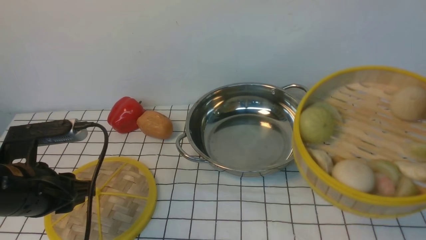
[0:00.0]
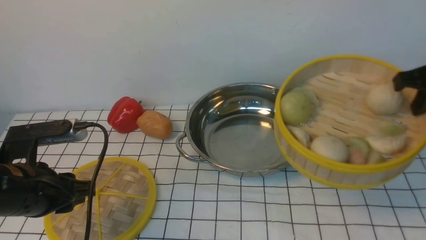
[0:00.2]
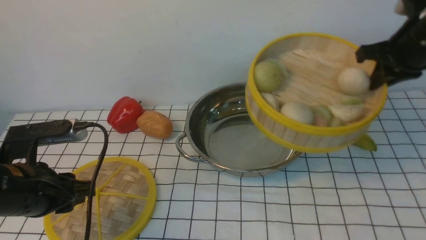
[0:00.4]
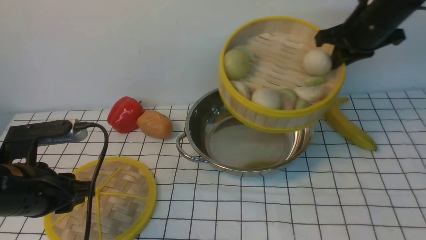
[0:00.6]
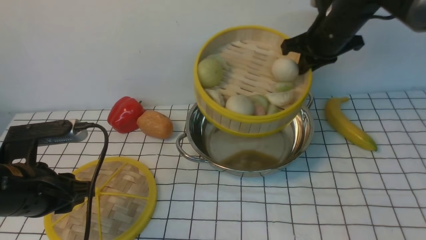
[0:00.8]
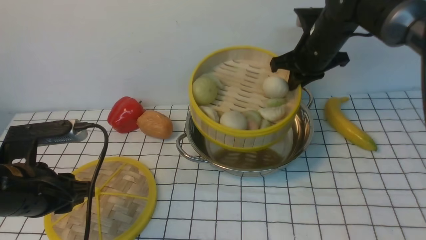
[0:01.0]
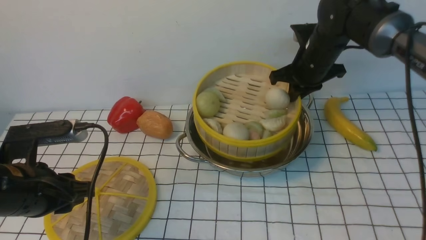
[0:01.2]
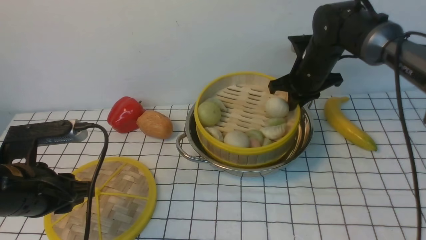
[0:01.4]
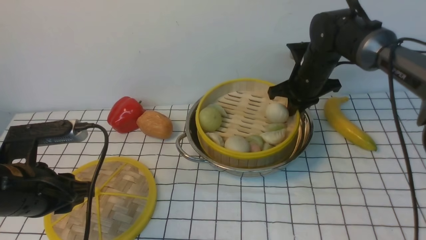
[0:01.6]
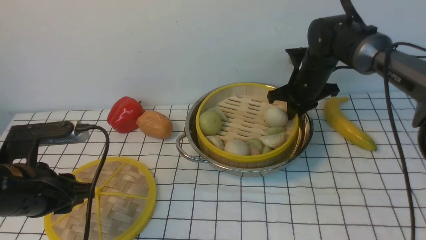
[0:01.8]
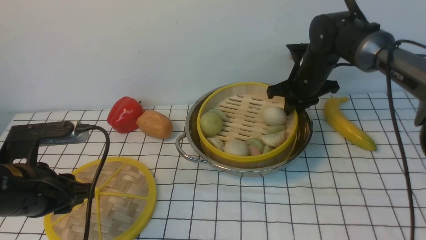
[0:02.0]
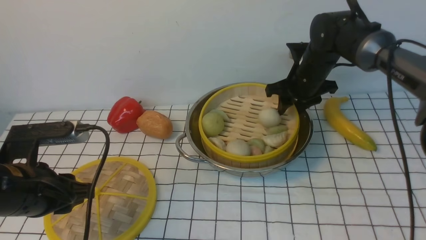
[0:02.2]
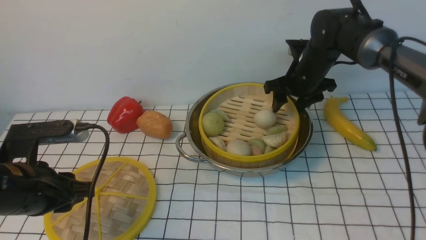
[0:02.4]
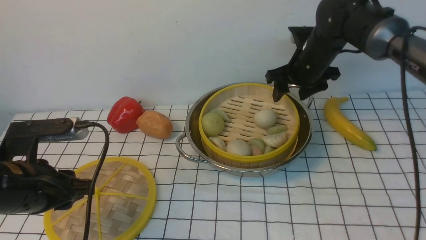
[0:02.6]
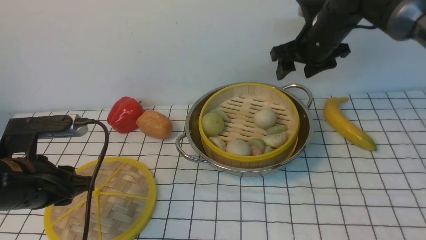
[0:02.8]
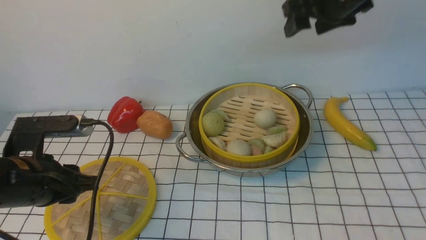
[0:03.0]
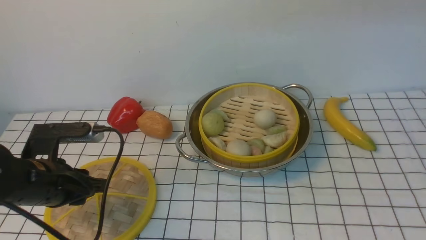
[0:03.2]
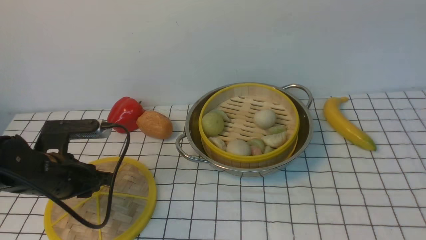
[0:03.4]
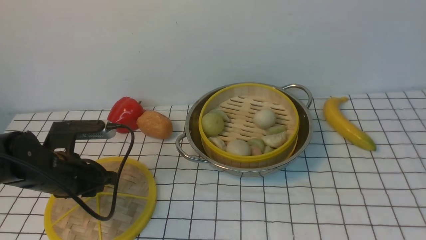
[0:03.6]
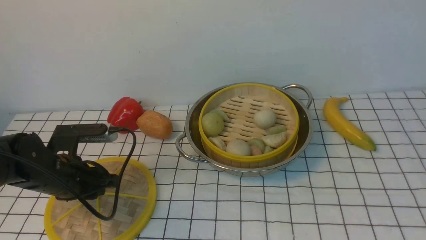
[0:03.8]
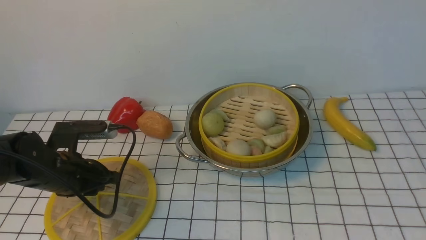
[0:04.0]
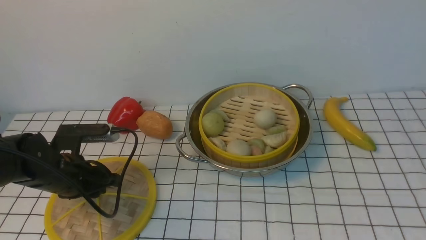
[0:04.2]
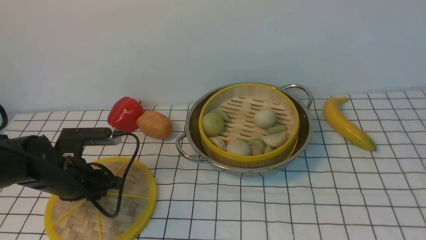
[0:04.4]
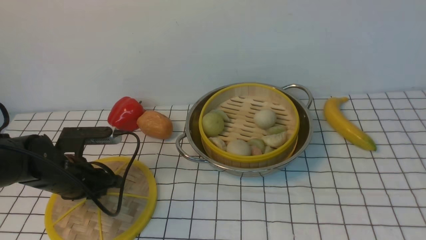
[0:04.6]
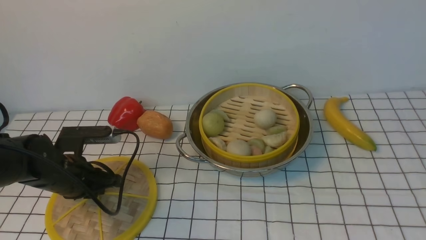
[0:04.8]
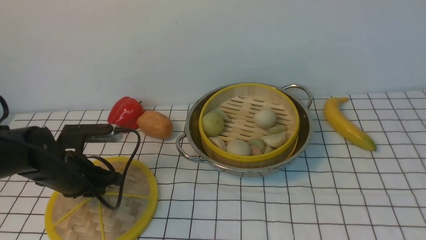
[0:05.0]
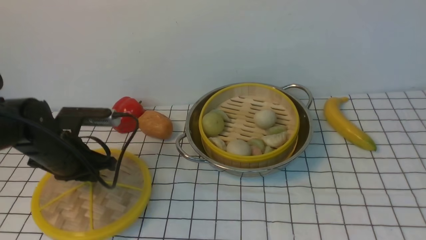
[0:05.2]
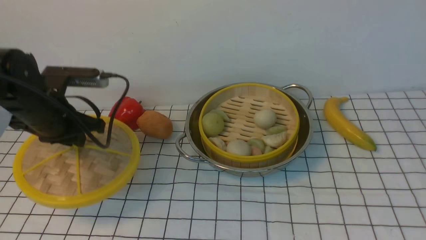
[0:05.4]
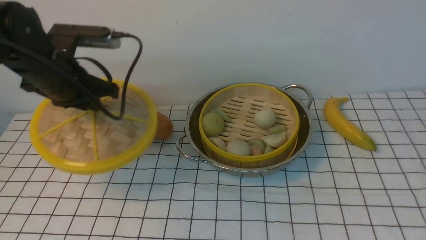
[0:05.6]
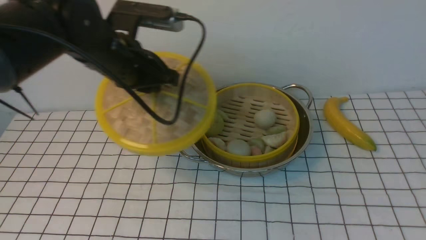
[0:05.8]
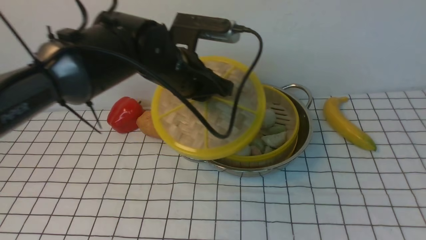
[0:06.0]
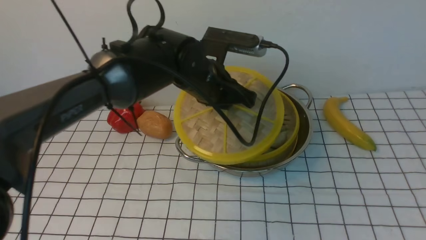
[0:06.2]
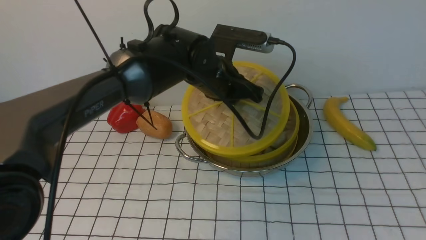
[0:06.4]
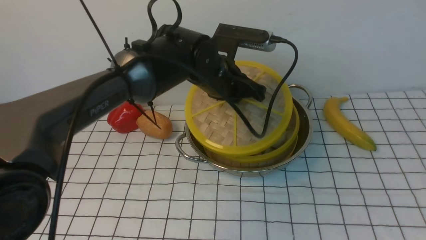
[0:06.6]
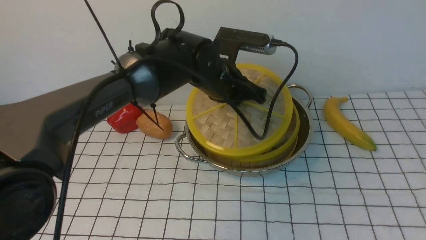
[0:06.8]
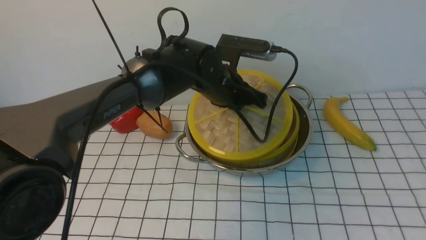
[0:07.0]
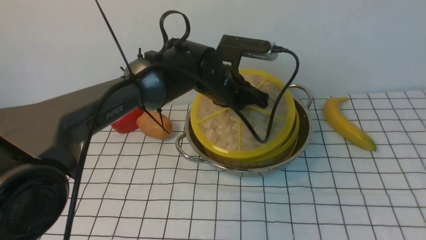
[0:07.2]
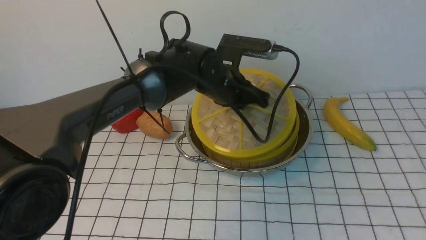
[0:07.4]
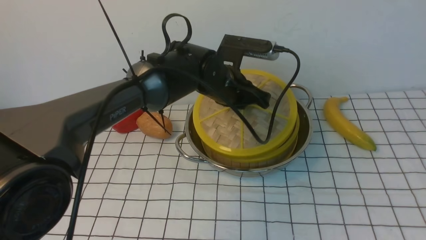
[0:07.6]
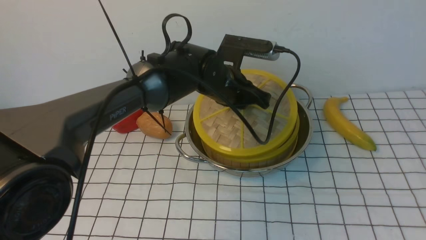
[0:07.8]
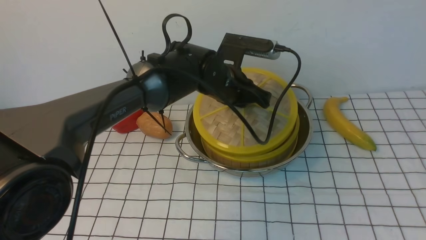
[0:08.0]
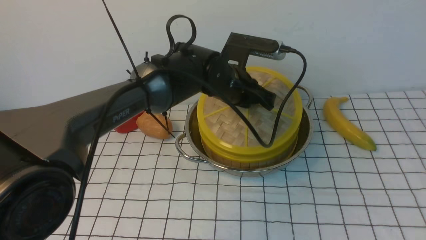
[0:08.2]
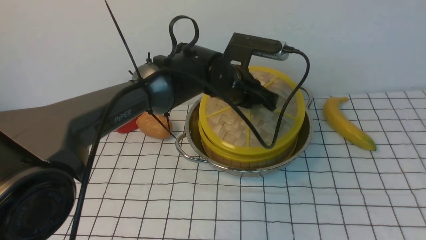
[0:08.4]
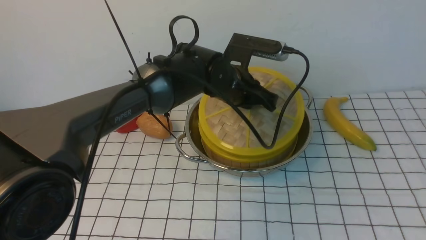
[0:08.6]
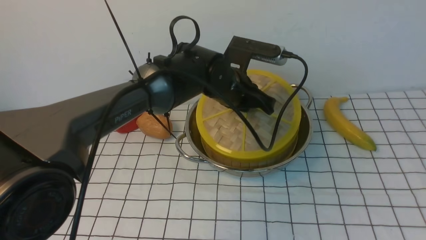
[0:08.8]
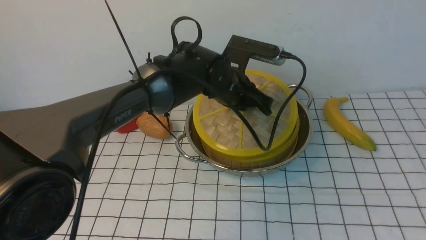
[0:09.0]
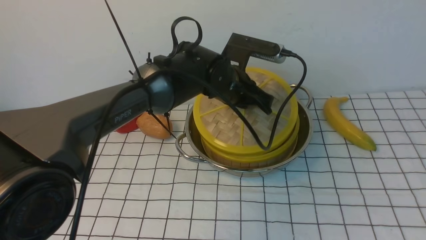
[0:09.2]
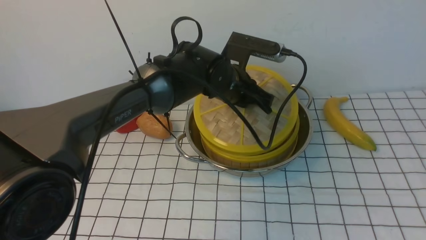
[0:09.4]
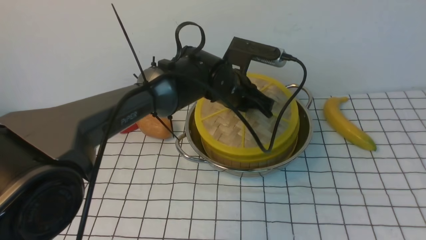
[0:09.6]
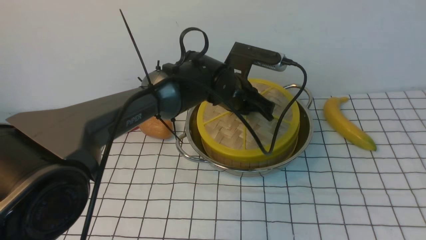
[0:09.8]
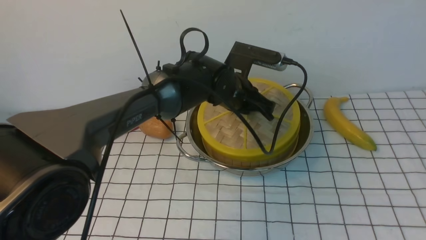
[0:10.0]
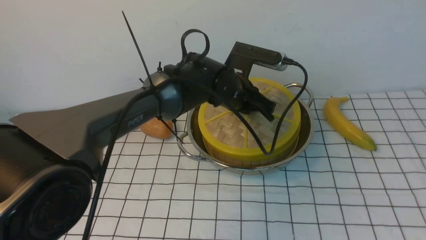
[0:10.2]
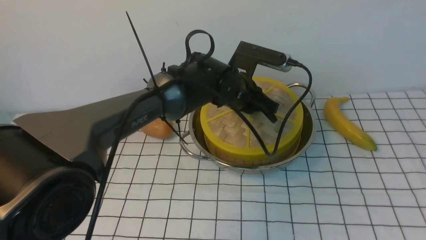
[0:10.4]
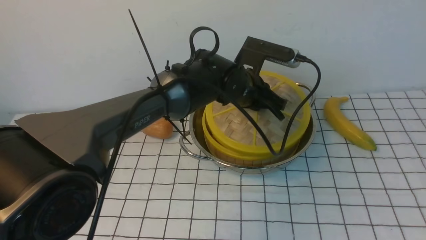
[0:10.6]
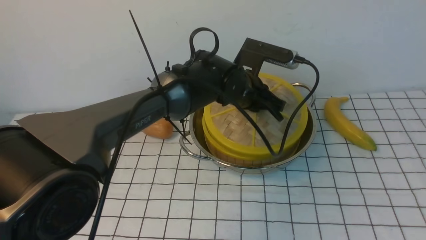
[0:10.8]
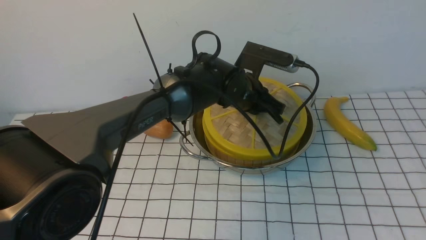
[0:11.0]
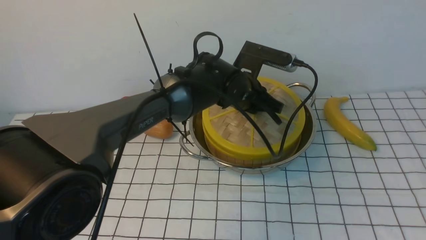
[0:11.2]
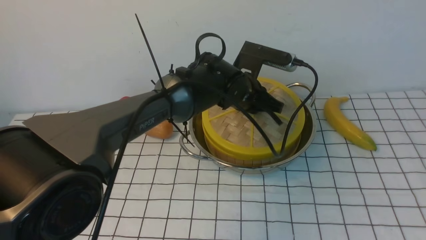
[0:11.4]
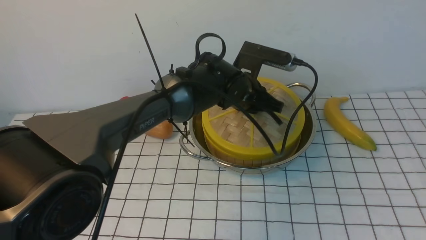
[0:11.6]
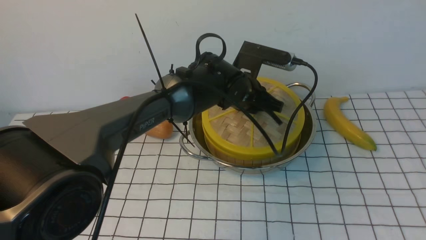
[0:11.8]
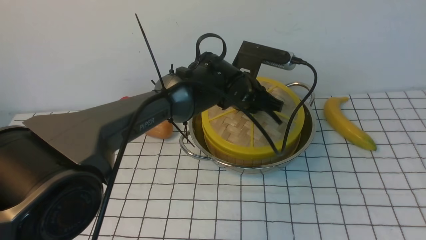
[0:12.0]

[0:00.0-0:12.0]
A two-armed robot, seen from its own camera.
Task of the whole recording: place the steamer in the pot on the white tablecloth, and put the lid on the steamer.
Step, 0:00.0 to 0:02.6: use the right arm to put the steamer into the iron steamer pot in the middle.
Step, 0:02.8 to 0:05.2: use the left arm to lift the lid of the steamer.
0:00.0 to 0:01.6: The right gripper goes some 30 cm forward, to the left and downward.
0:01.6 to 0:03.0: The right gripper moves upward, about 20 cm, and opens up.
0:03.0 to 0:04.4: The right gripper goes about 40 cm backward. The left gripper heads downward and forward, covering some 10 cm.
0:04.4 to 0:06.0: The left gripper shifts some 25 cm to the right, upward and forward, and closes its fingers.
0:06.0 to 0:07.6: The left gripper heads to the right and downward, covering roughly 10 cm.
0:07.6 to 0:09.0: Both grippers stay put.
0:09.0 to 0:10.4: The grippers move only a little.
0:10.4 to 0:12.0: Both grippers stay put.

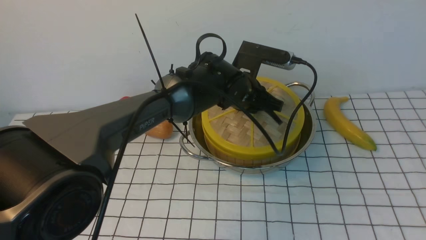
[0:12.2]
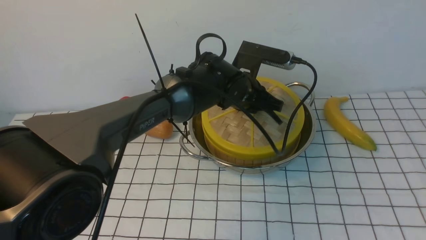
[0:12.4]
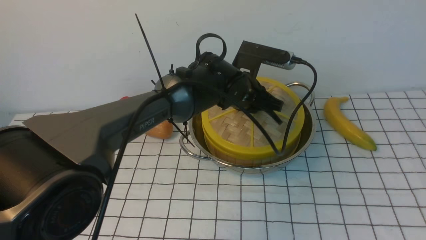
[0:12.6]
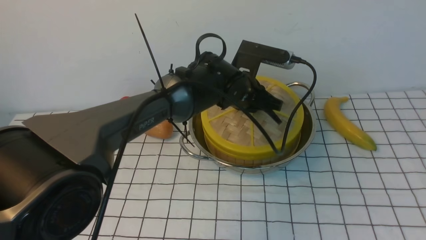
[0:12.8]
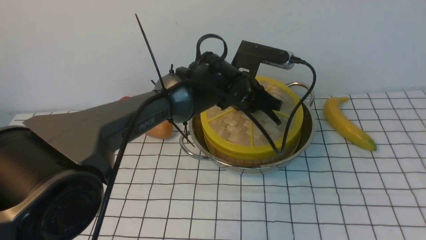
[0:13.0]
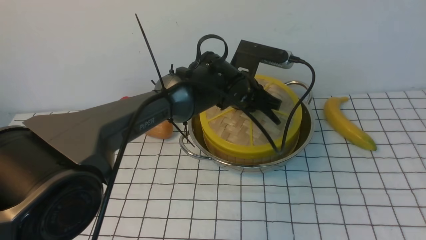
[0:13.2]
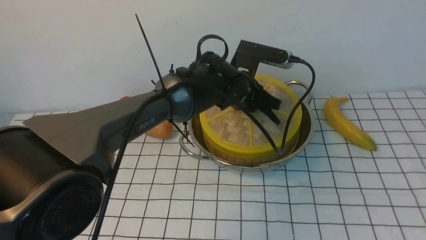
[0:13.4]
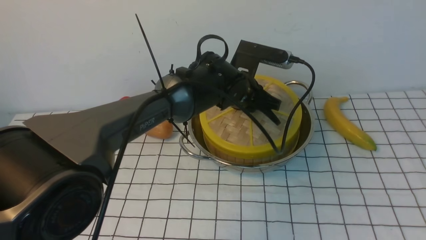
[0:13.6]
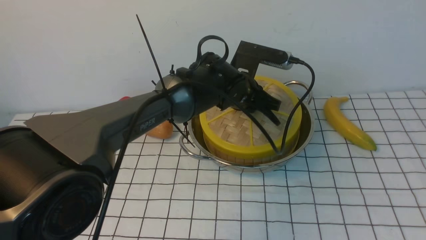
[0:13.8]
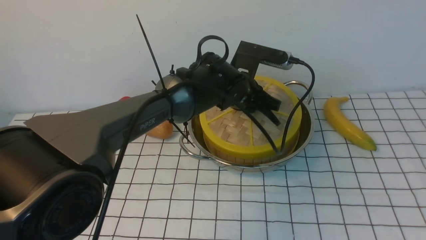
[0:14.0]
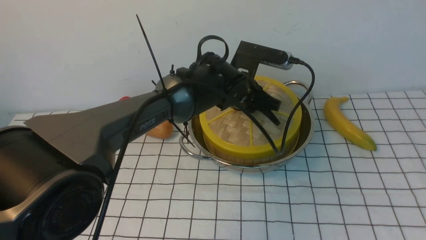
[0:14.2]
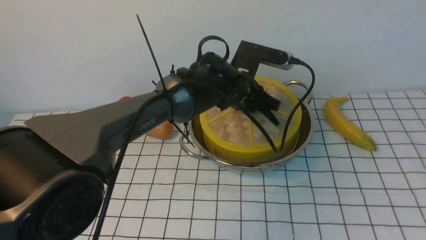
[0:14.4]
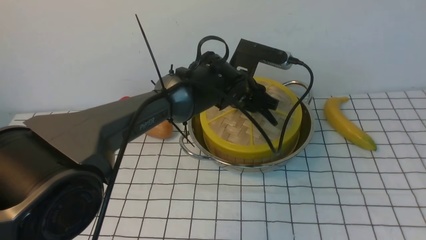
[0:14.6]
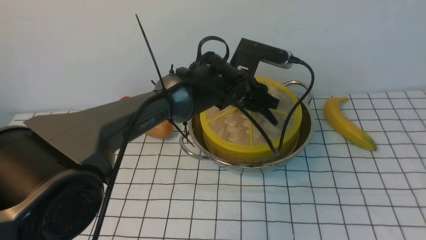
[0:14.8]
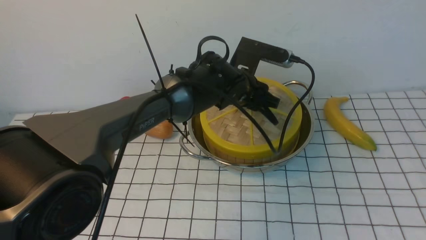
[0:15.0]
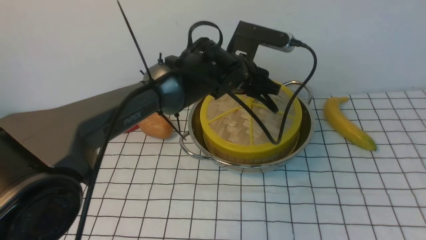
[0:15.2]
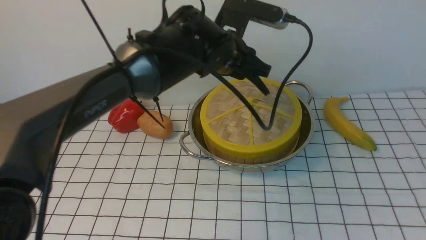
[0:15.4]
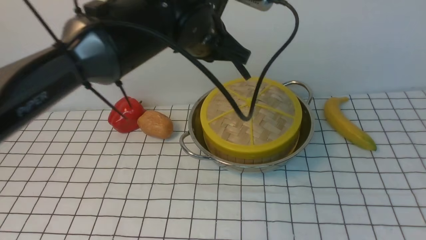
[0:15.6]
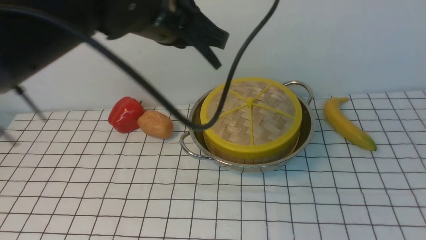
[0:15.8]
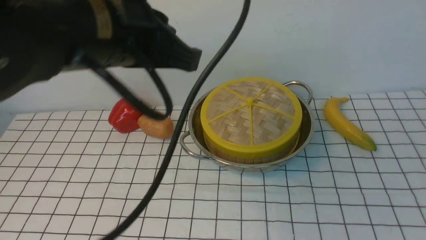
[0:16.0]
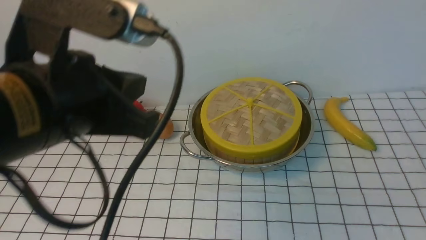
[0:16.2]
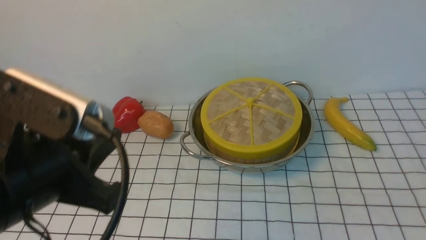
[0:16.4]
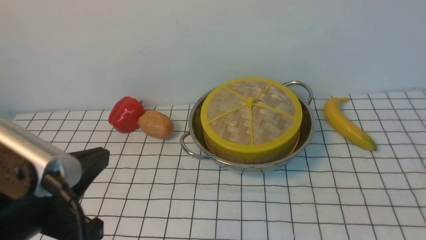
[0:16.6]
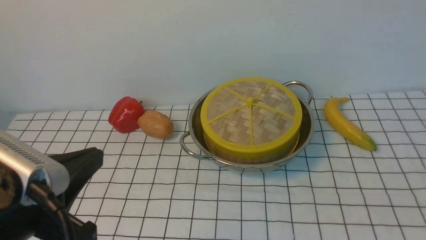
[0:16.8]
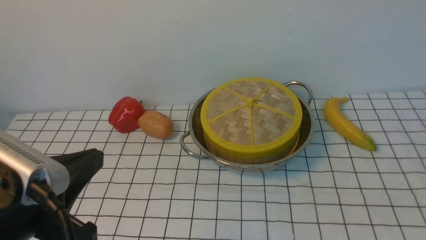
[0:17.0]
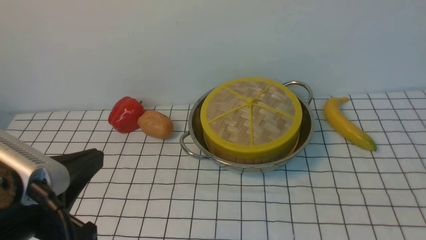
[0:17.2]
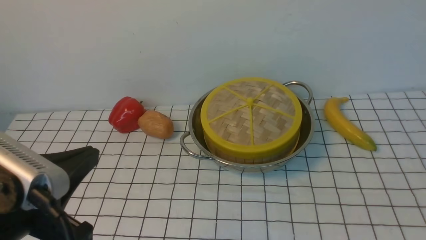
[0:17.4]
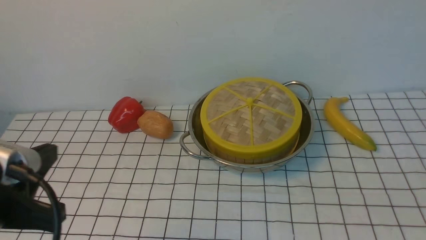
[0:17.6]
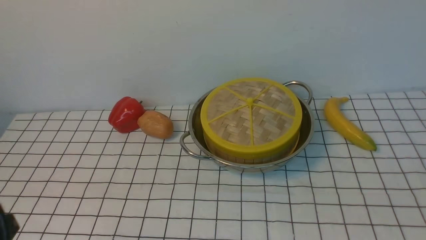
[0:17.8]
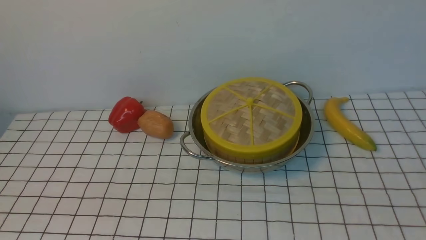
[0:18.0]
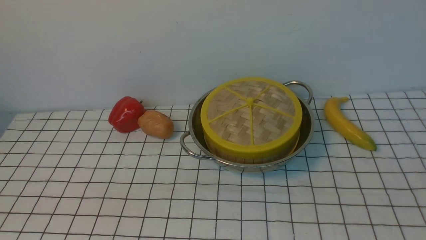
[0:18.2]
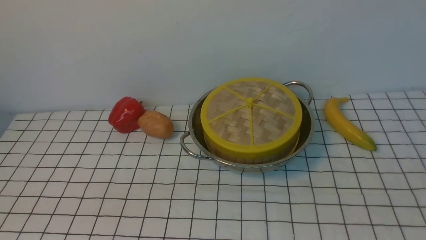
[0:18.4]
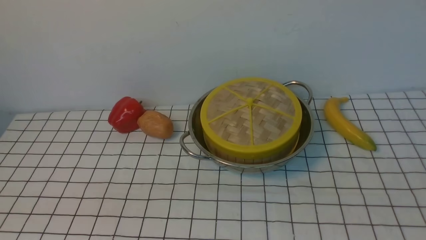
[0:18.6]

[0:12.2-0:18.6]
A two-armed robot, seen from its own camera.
Task of the whole recording: place the steamer in the pot on the white tablecloth, and put the lid on the steamer.
Step, 0:12.2 to 0:15.4: use the left arm to place the steamer lid on the steamer.
0:12.2 to 0:13.8: Both grippers stay put.
0:13.8 to 0:15.4: The left gripper heads upward, covering roughly 10 cm, and opens, then closes once more.
0:15.4 to 0:17.0: The left gripper moves backward and to the left, some 35 cm, and closes up, while the right gripper goes some 20 cm downward, and closes.
0:17.0 to 0:18.6: The left gripper heads to the left, backward and downward, covering roughly 10 cm.
